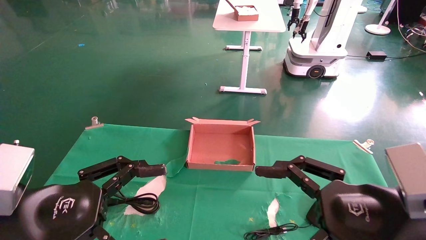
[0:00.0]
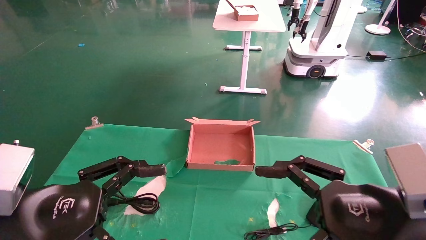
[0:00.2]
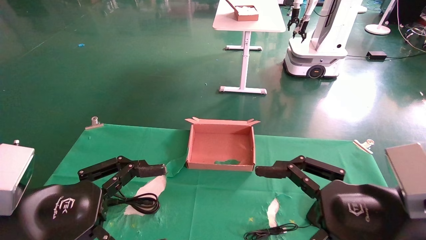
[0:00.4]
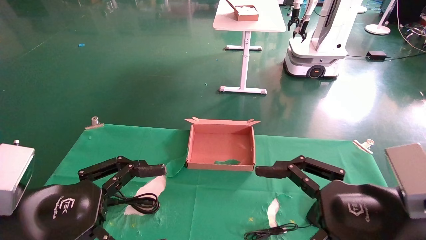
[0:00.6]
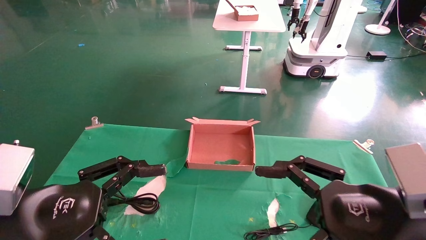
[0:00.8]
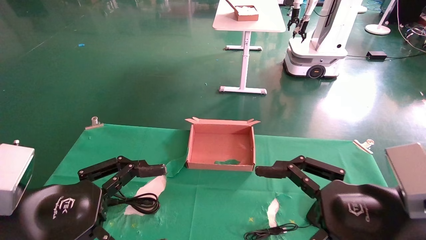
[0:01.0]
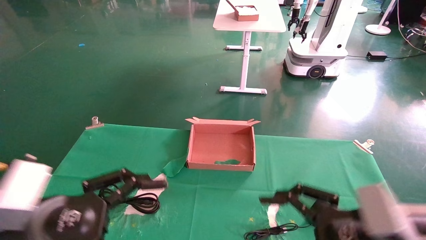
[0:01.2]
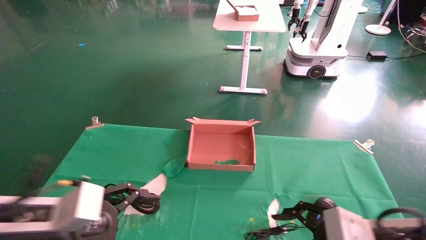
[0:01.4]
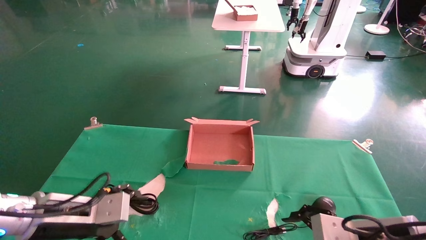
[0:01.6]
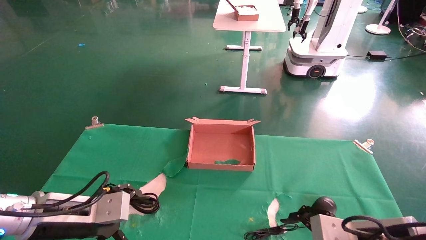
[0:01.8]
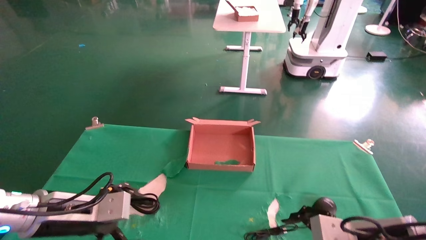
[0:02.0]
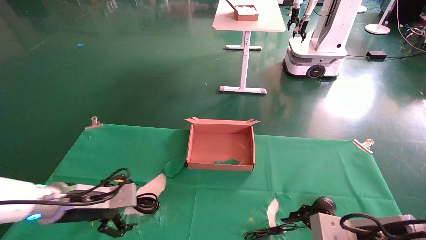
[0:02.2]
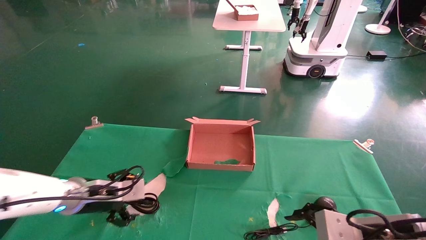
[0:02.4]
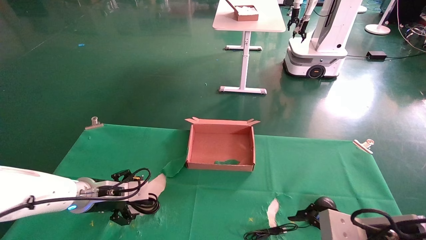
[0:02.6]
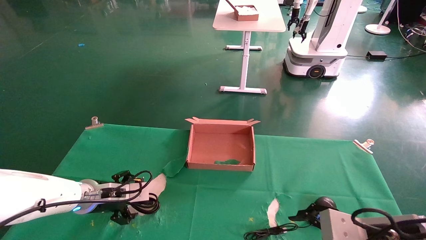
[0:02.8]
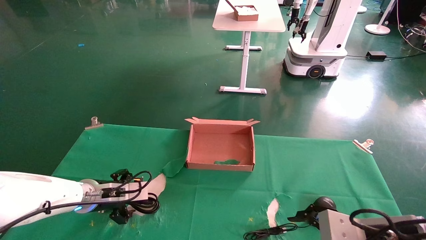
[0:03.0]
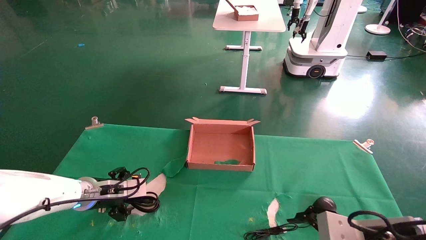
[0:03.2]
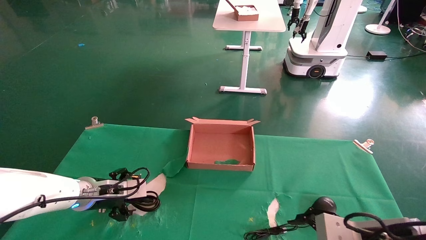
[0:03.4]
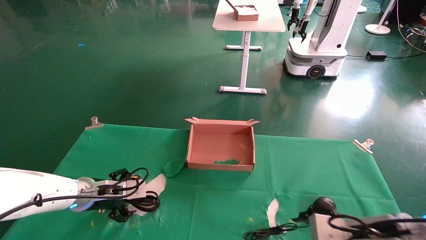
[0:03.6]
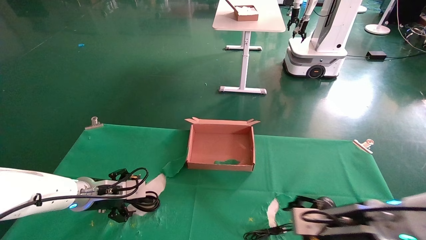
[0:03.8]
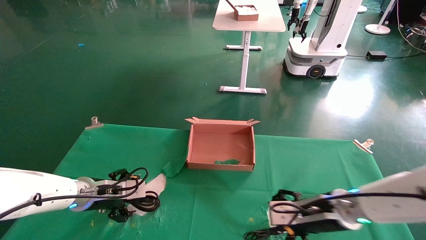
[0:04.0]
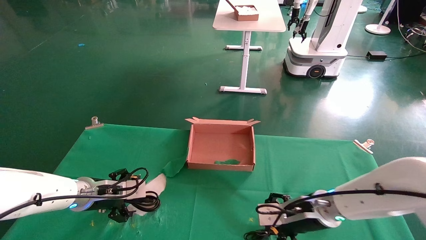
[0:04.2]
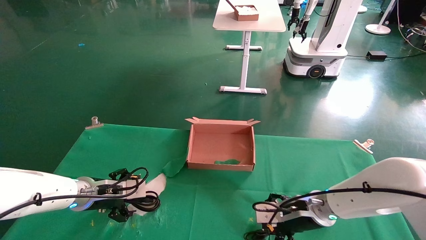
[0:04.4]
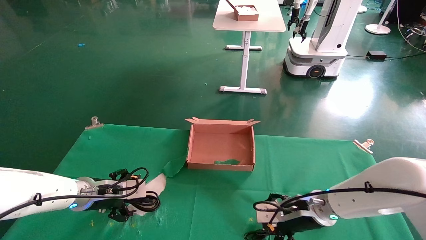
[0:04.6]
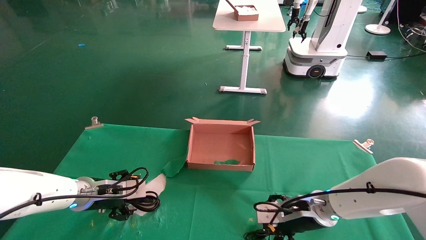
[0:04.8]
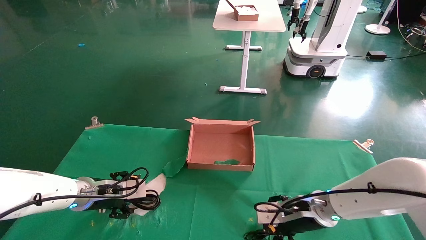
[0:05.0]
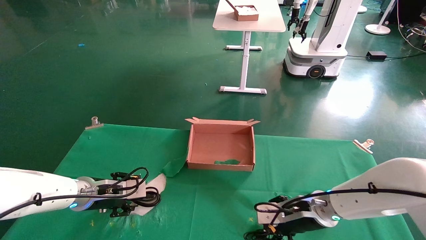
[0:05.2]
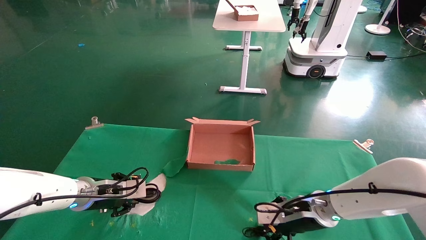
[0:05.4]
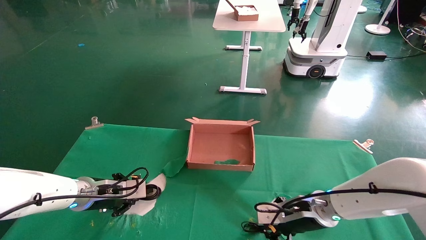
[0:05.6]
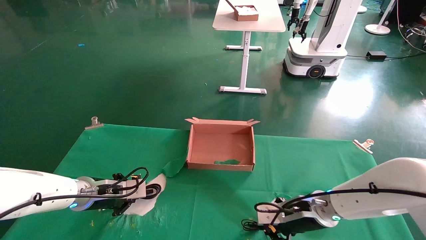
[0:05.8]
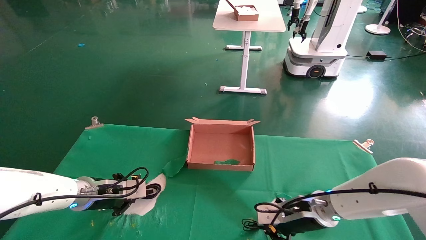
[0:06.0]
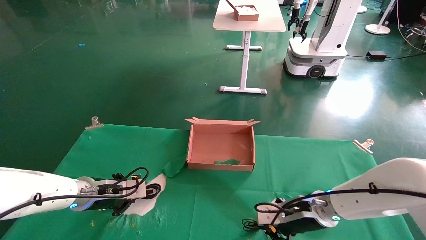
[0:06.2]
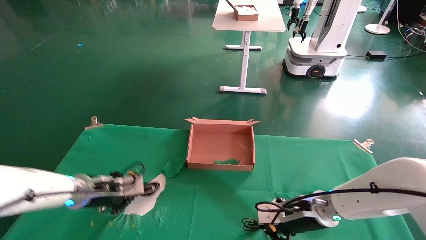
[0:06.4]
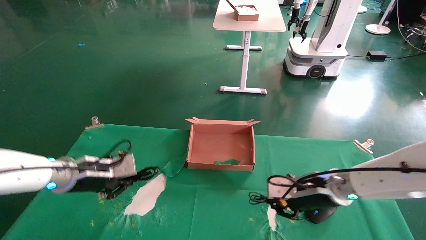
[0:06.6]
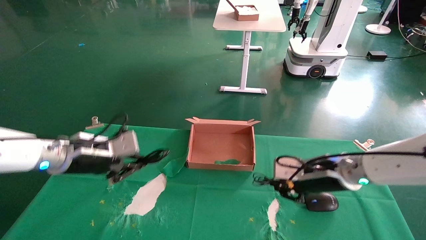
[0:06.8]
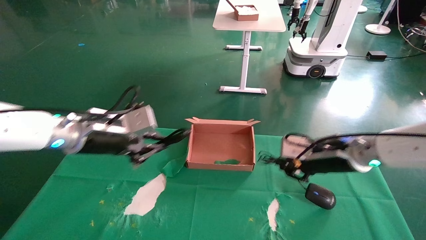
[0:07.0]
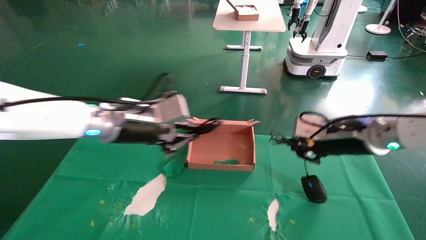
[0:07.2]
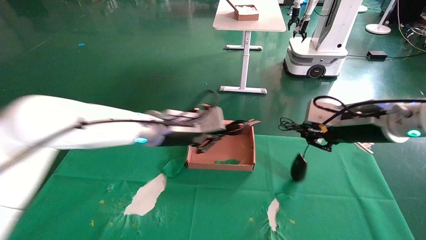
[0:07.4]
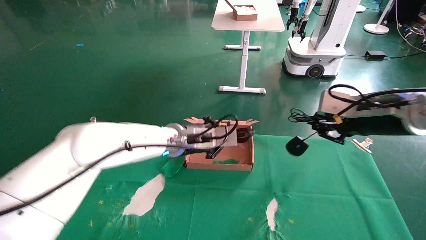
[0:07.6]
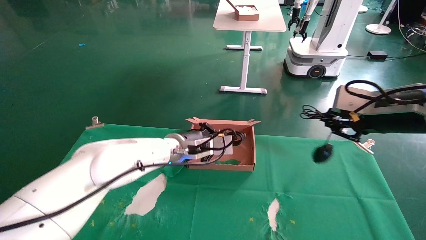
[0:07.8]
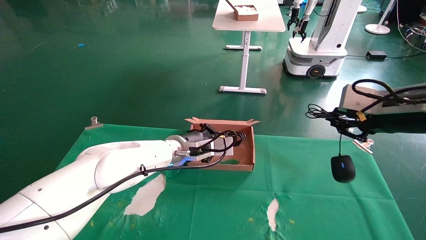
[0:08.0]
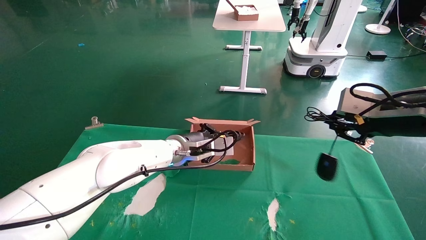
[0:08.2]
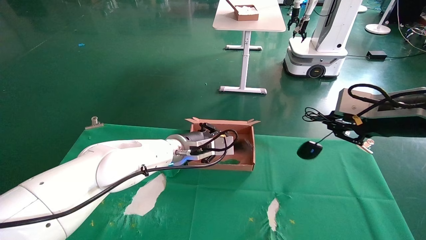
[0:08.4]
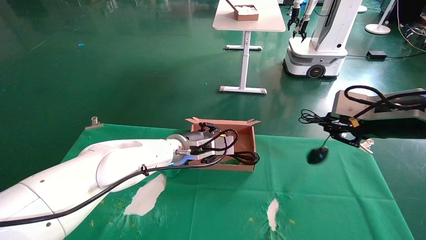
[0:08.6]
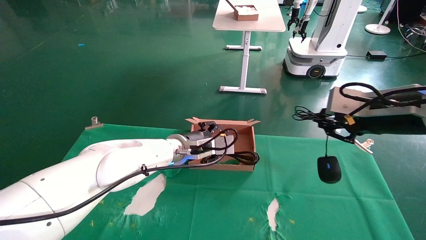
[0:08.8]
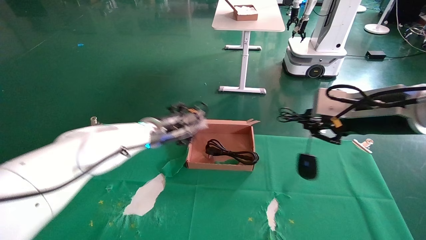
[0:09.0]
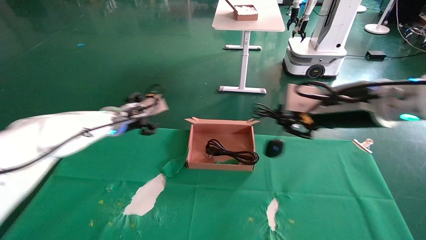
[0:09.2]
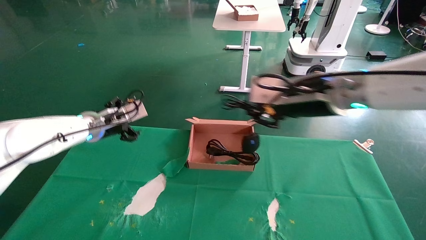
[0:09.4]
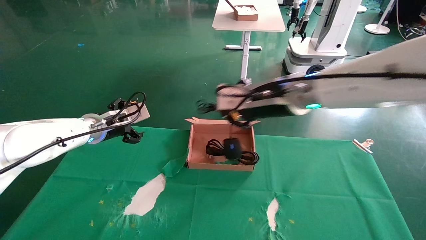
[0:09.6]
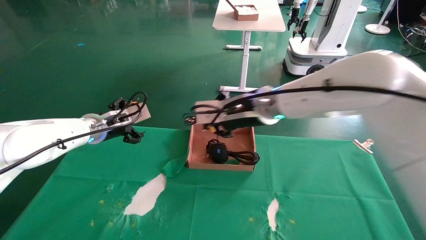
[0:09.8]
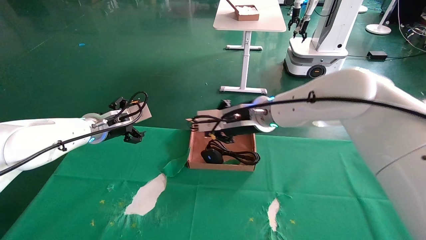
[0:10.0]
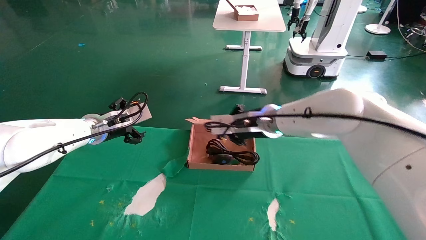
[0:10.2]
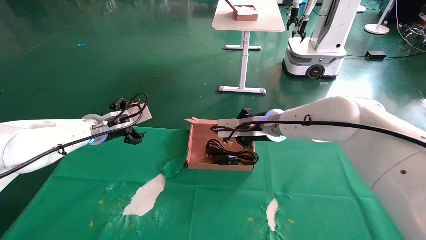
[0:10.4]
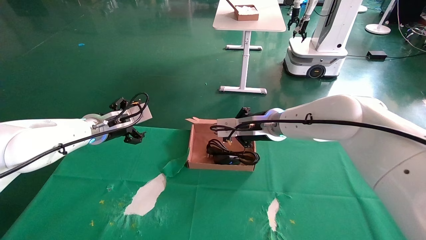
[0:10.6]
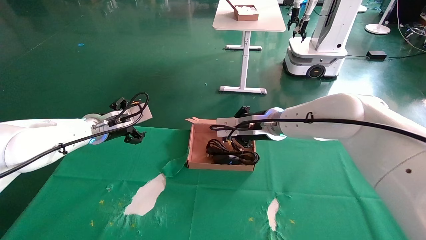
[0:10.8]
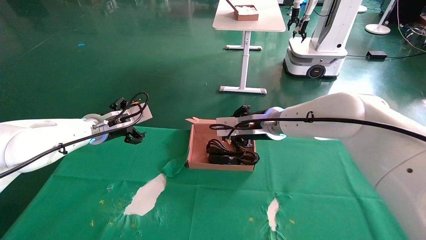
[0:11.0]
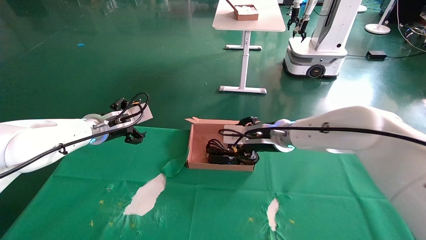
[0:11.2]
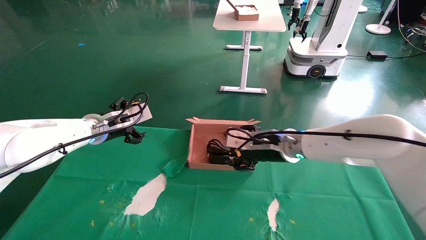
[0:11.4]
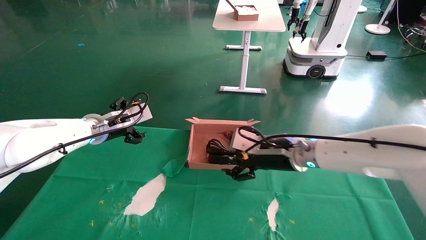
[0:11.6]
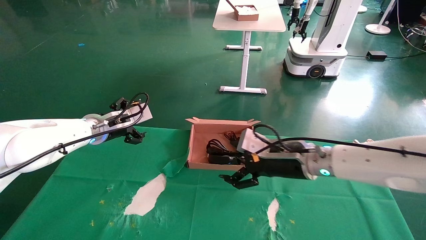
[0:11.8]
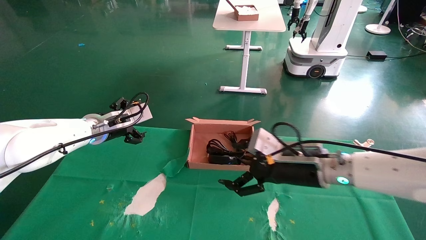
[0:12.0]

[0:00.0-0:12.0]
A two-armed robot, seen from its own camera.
Step, 0:02.2 to 0:06.6: Grab and lift both the mouse and power cord from the accessory packaging area at the same time.
0:00.0 to 0:01.6: The left gripper heads forward and downward, covering roughly 10 cm; the right gripper shifts about 10 cm downward and forward.
0:01.6 to 0:03.0: The left gripper moves forward, about 15 cm.
0:03.0 to 0:04.4: The right gripper goes about 15 cm forward and to the left.
0:04.4 to 0:06.0: The right gripper closes its fingers. Meanwhile the left gripper closes.
0:06.0 to 0:07.6: The right gripper heads upward and to the right, covering some 25 cm. The left gripper travels to the right and upward by roughly 20 cm.
0:07.6 to 0:09.0: The right gripper moves roughly 5 cm, while the left gripper moves to the left, approximately 5 cm, and opens up.
0:09.0 to 0:10.4: The left gripper goes some 10 cm to the left, and opens its fingers; the right gripper moves to the left, forward and downward, approximately 25 cm.
0:10.4 to 0:12.0: The right gripper travels backward, to the right and downward by about 15 cm, and opens up.

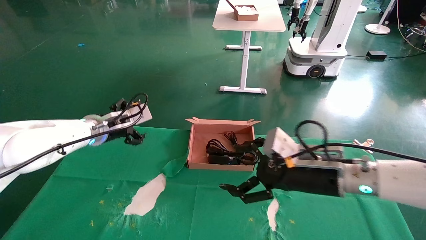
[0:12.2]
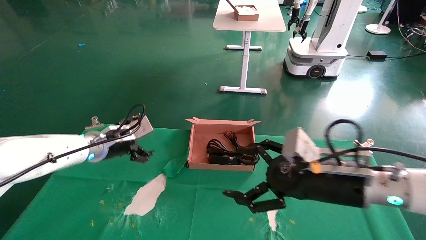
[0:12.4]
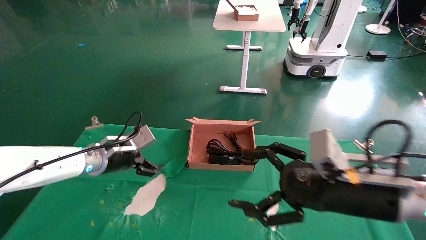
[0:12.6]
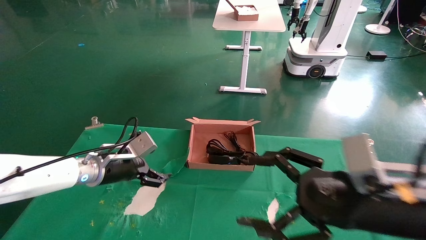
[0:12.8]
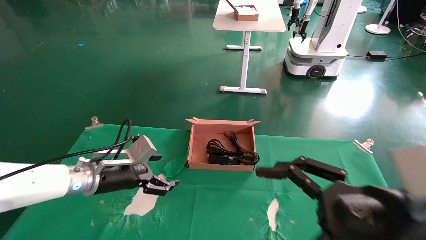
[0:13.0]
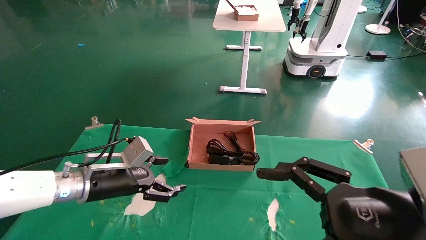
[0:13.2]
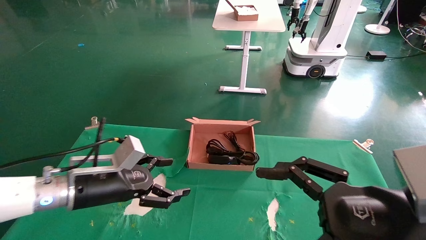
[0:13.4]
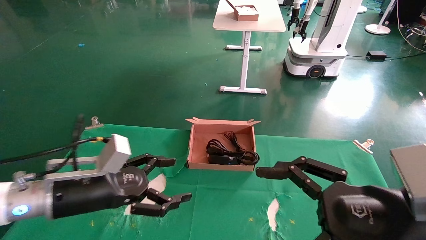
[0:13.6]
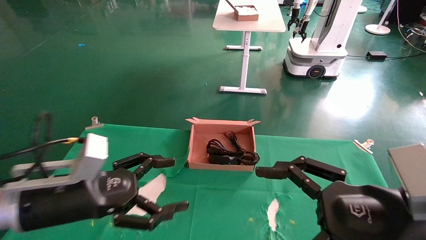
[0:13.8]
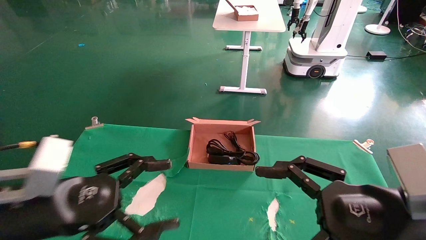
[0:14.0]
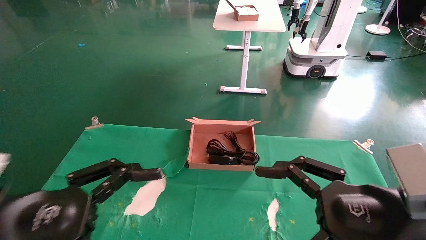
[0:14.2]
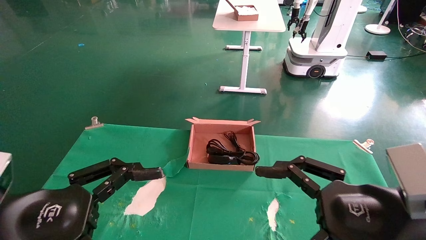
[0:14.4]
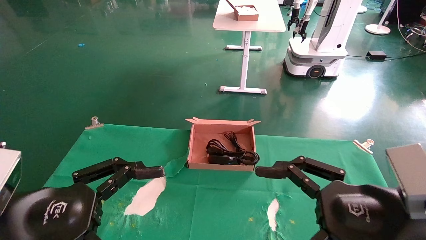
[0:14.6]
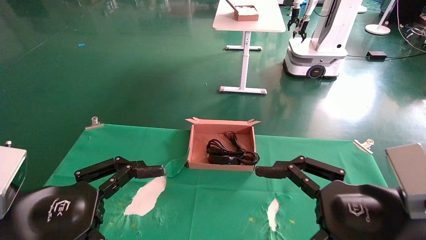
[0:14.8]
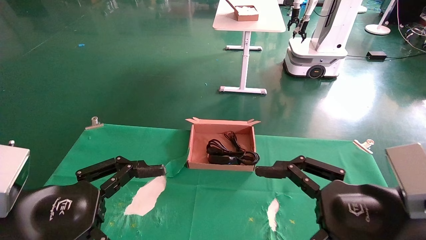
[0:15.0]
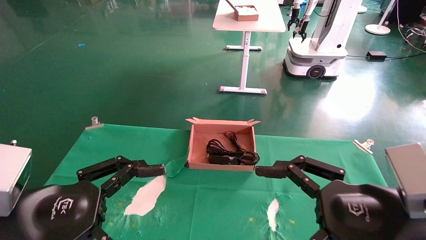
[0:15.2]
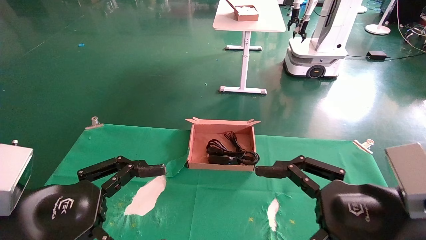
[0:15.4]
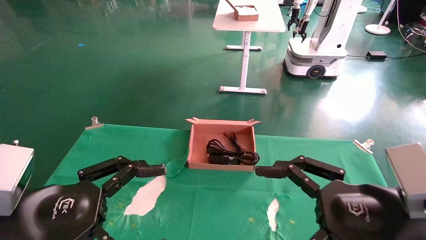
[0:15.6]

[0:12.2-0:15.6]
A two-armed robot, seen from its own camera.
0:12.2 to 0:13.8: Both grippers travel together backward, roughly 20 cm.
0:13.8 to 0:15.6: The left gripper heads backward, covering approximately 5 cm.

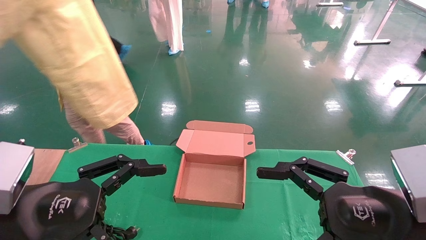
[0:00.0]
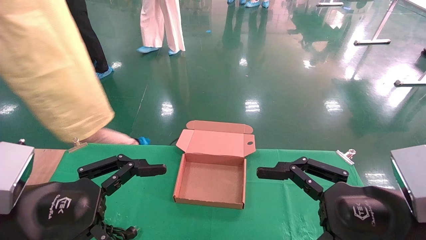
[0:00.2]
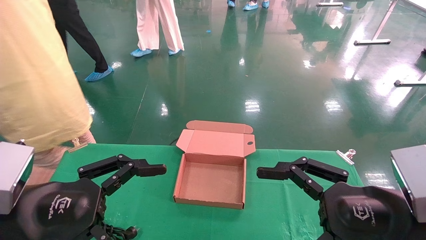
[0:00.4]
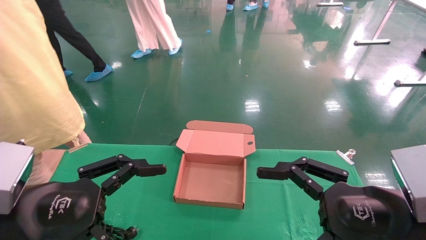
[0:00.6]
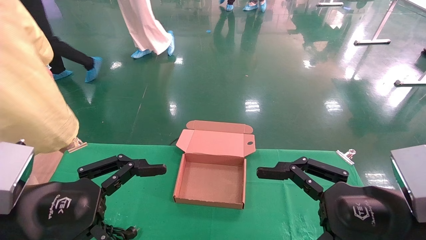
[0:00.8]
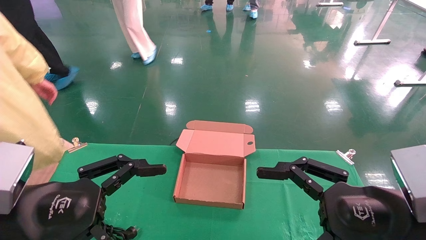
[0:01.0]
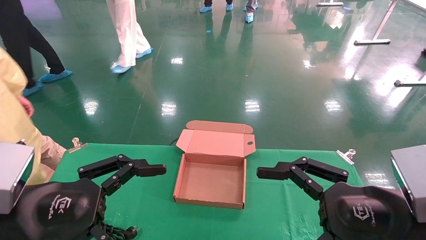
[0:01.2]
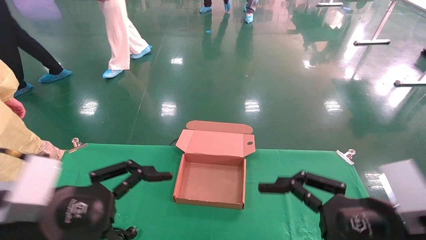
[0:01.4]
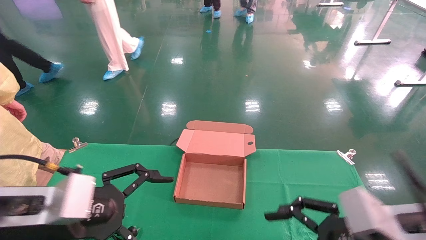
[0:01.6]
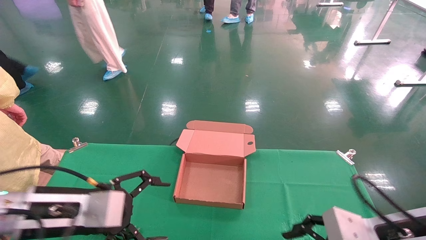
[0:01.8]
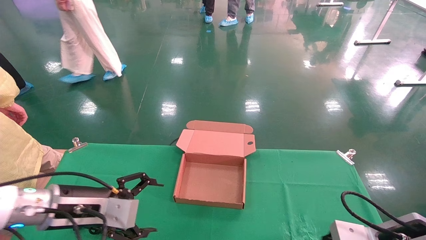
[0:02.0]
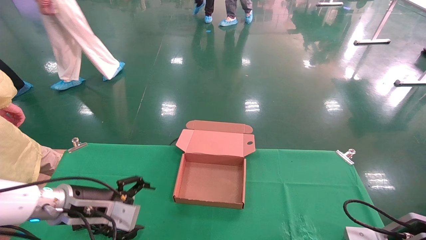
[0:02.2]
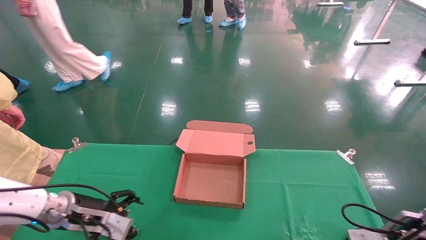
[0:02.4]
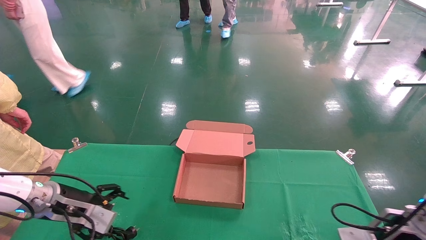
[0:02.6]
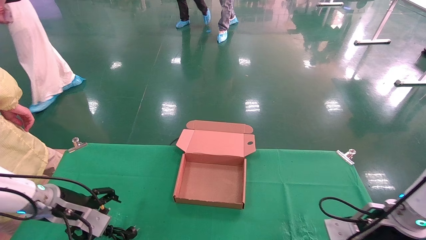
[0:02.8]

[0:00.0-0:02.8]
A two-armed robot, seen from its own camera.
0:01.4 to 0:02.8: The left gripper goes some 25 cm forward, downward and to the left; the right gripper shifts about 20 cm forward, downward and to the right.
